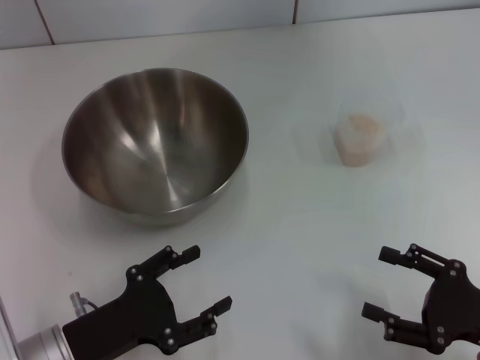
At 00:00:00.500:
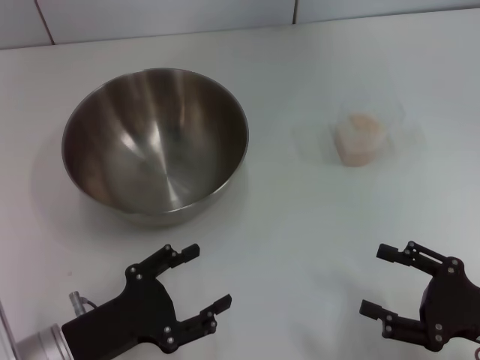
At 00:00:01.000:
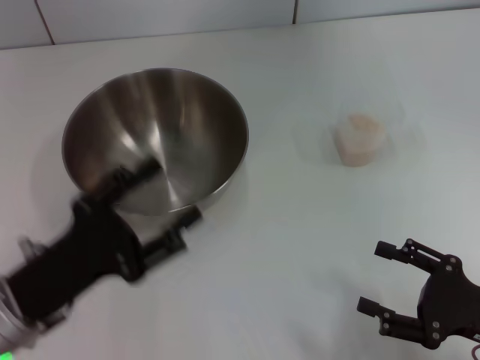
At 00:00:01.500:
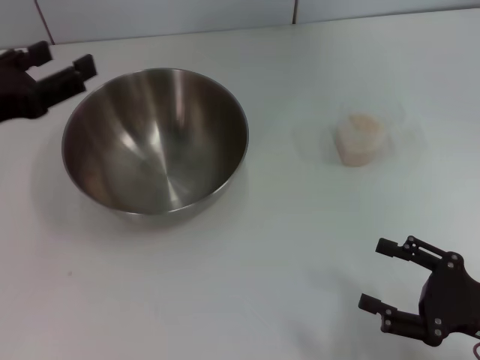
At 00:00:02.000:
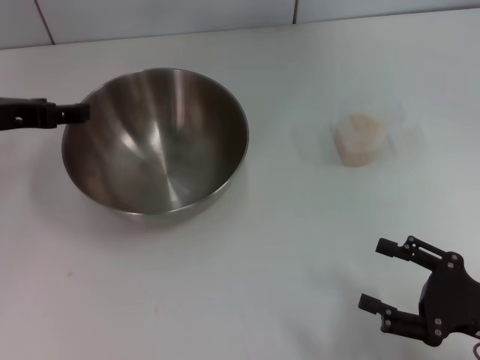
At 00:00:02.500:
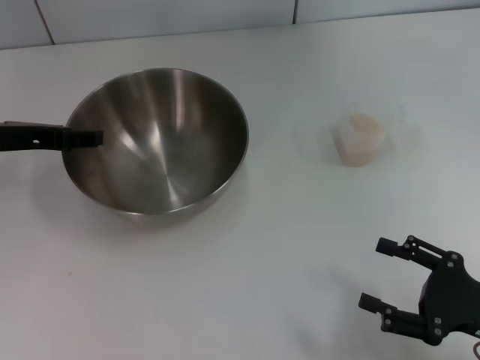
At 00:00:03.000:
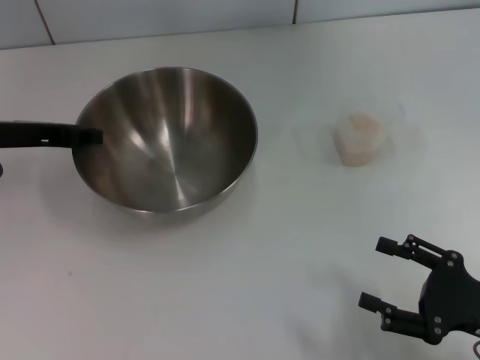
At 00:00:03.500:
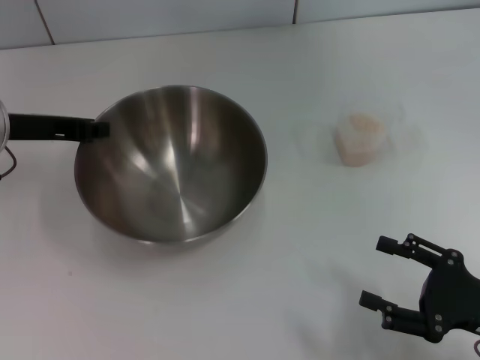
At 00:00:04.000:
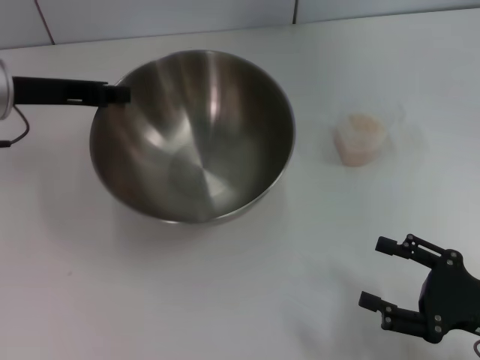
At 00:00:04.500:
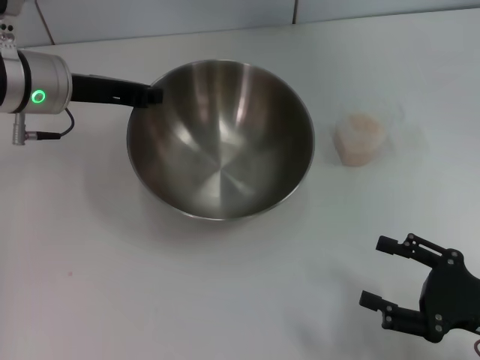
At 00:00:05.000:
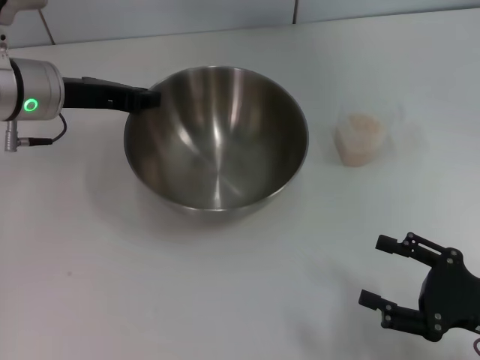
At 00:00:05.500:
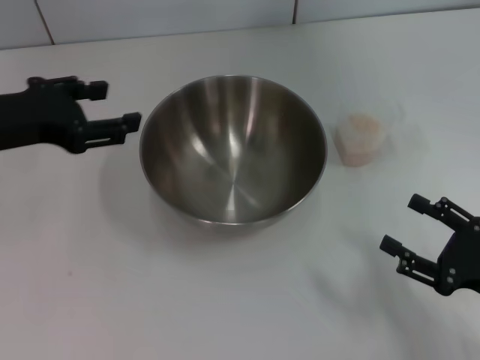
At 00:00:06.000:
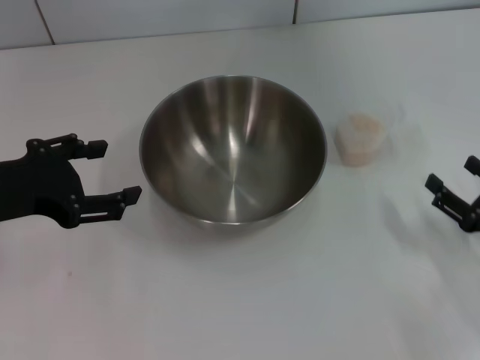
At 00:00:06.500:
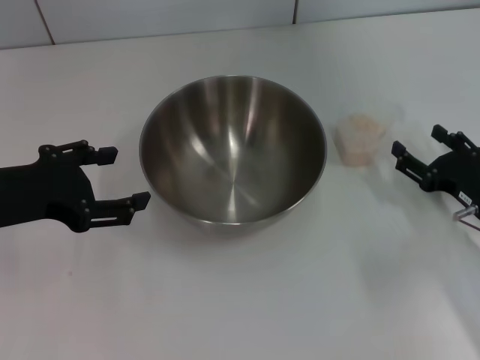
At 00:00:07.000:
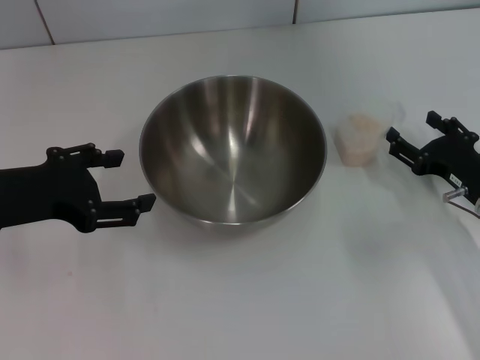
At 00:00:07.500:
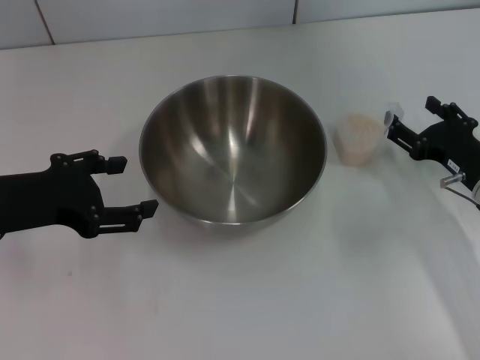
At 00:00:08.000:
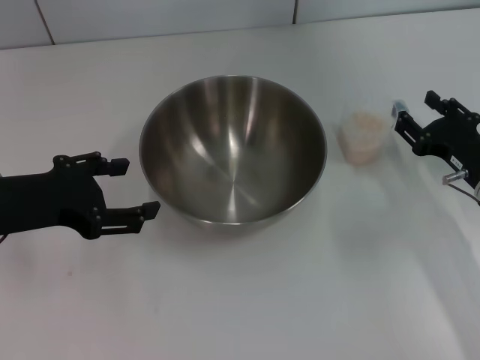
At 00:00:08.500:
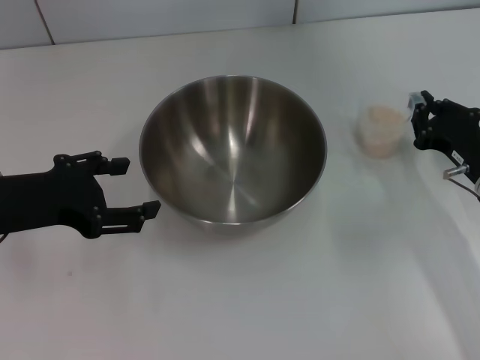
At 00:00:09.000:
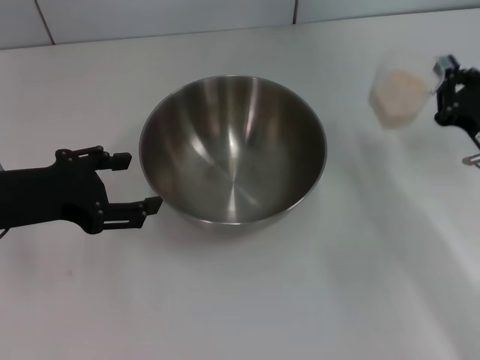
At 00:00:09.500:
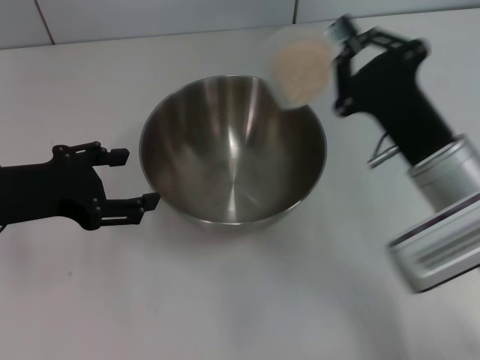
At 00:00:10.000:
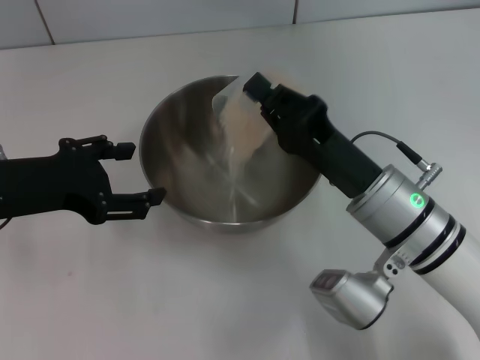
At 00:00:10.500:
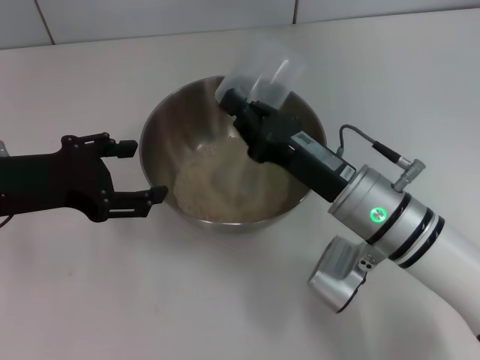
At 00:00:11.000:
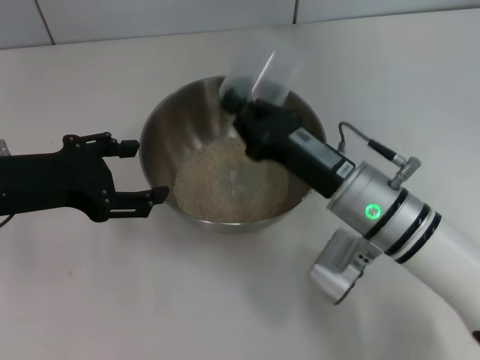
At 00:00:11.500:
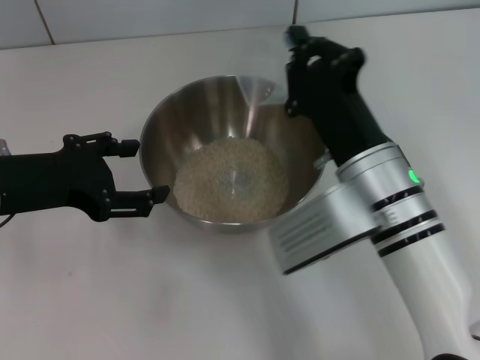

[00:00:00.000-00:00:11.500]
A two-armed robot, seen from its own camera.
Task of the whole recording: Place the bowl in the middle of the table with one hand and pour the rice from the grain cup into it with the other hand.
Step, 00:00:00.000 to 00:00:04.000: Pick up the bowl with the left gripper.
Step, 00:00:04.500 to 00:00:05.000: Place the bowl in the center of view with the left gripper.
Step, 00:00:05.500 to 00:00:09.000: Pick up the cup with rice in it with the right gripper.
Step, 00:00:09.500 to 00:00:10.500: Pour the rice from the cup into the bowl with the right gripper.
00:00:00.000 to 00:00:02.000: The left gripper heads forward and upward, covering approximately 25 cm.
00:00:02.000 to 00:00:04.000: The left gripper closes.
00:00:04.000 to 00:00:06.000: The left gripper shifts approximately 10 cm backward, and opens its fingers. Meanwhile the right gripper ends up approximately 5 cm from where it was.
00:00:06.000 to 00:00:07.500: The right gripper travels forward by some 10 cm.
00:00:07.500 to 00:00:09.500: The right gripper goes about 10 cm to the left and upward, and closes up.
00:00:09.500 to 00:00:11.500: The right gripper goes about 10 cm to the left.

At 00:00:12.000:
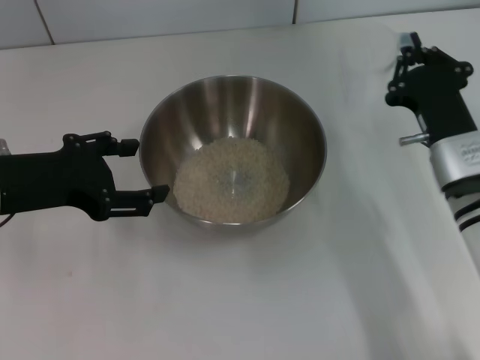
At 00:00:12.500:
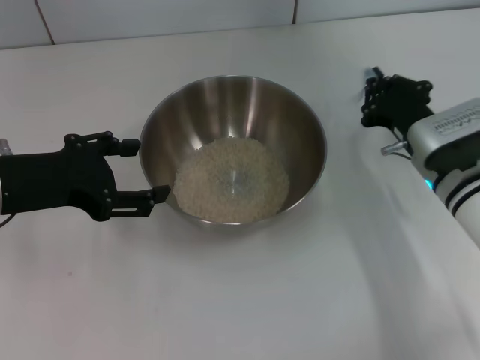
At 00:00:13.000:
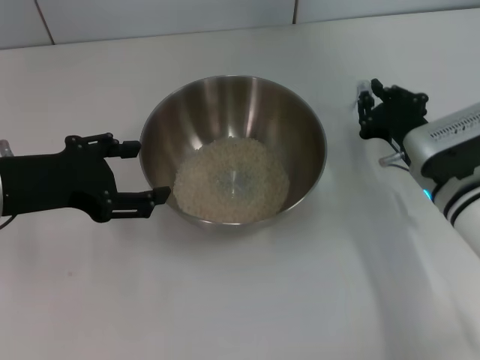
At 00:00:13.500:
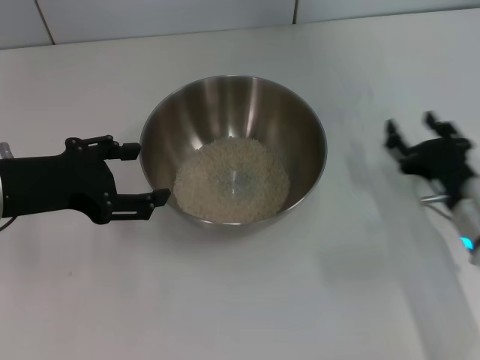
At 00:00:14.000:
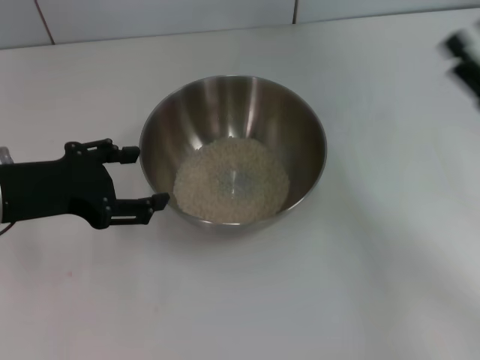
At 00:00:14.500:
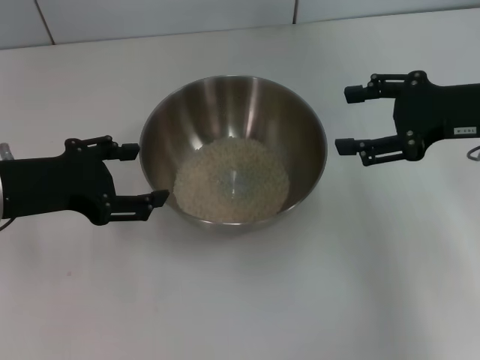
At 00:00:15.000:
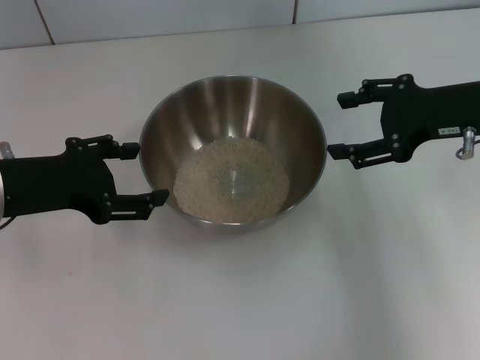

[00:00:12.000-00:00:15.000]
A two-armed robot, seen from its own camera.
Task of the whole recording: Place the bowl in the middle of the table with one hand and pour the rice from the grain cup into it with the other hand.
00:00:12.000 to 00:00:13.500: The right gripper changes place by approximately 5 cm, and opens up.
00:00:13.500 to 00:00:15.000: The right gripper shifts some 20 cm upward and forward, and opens its fingers.

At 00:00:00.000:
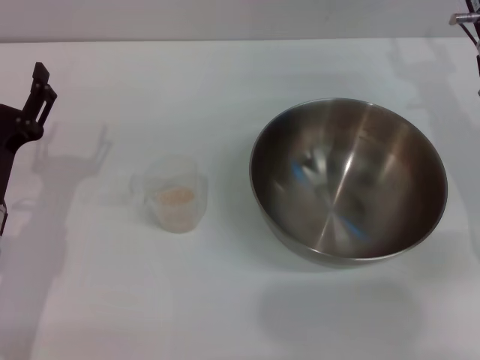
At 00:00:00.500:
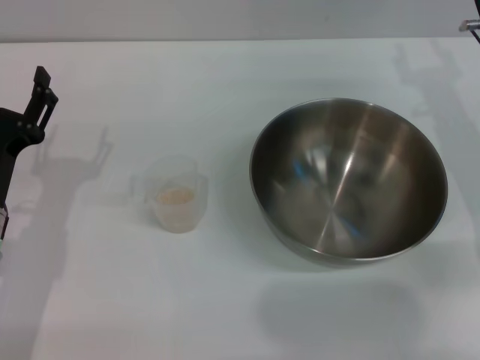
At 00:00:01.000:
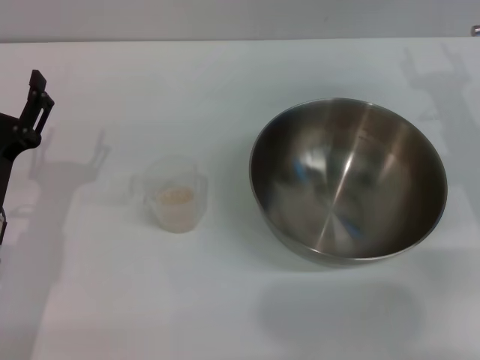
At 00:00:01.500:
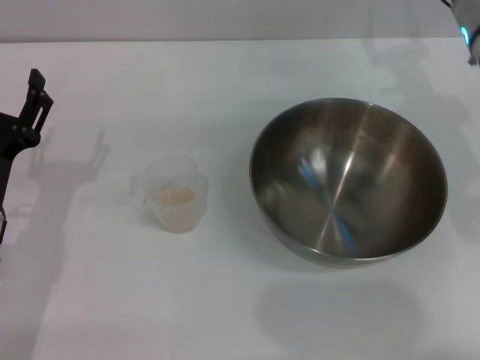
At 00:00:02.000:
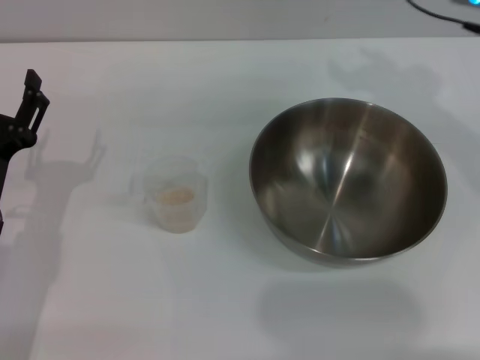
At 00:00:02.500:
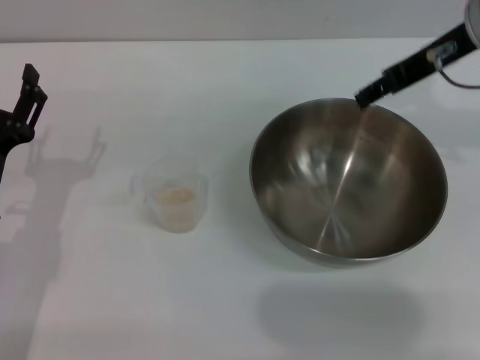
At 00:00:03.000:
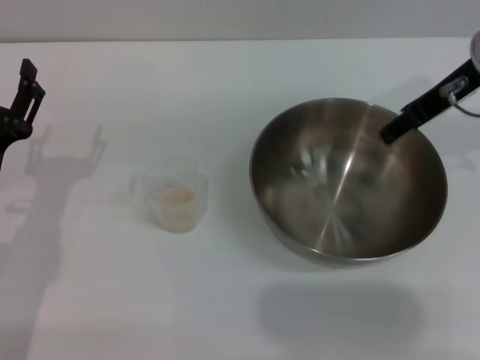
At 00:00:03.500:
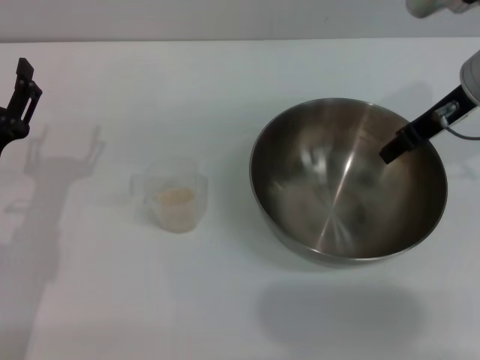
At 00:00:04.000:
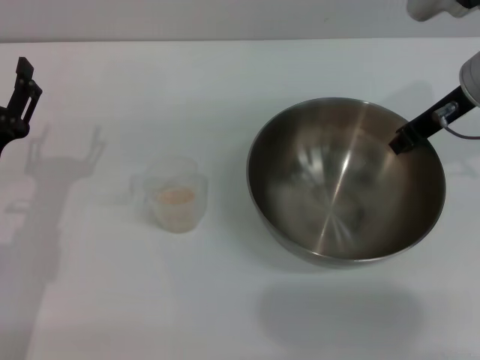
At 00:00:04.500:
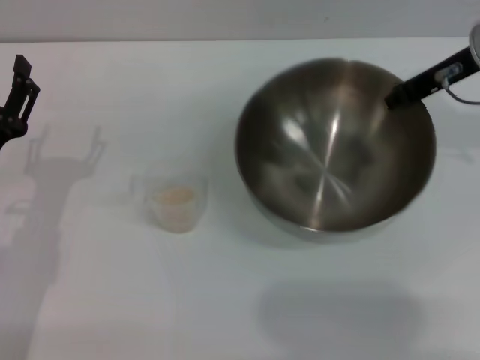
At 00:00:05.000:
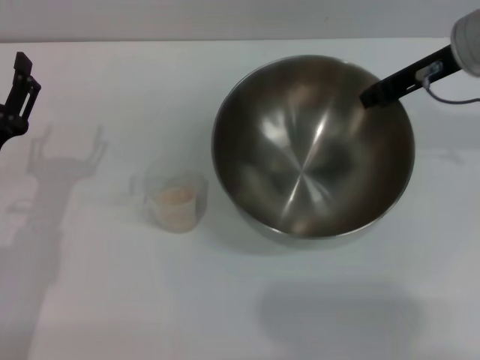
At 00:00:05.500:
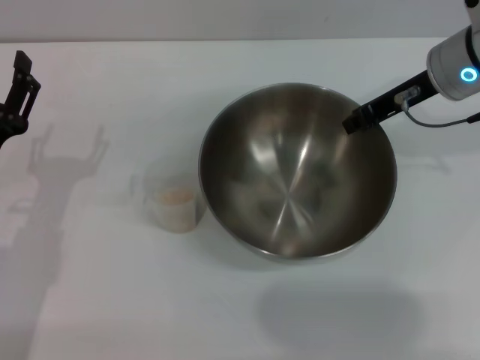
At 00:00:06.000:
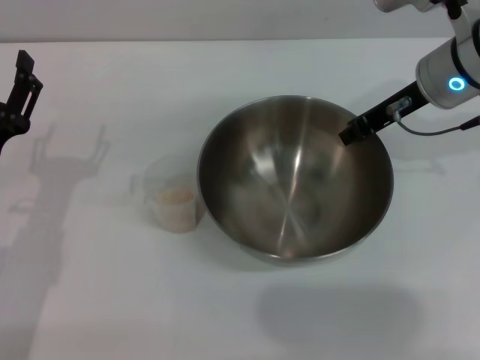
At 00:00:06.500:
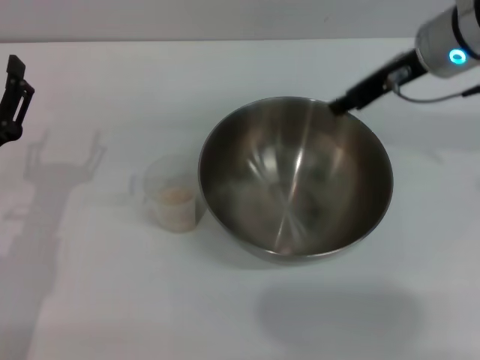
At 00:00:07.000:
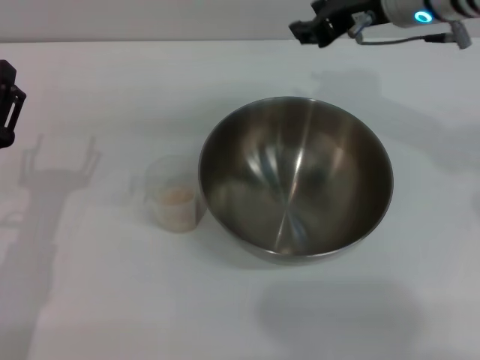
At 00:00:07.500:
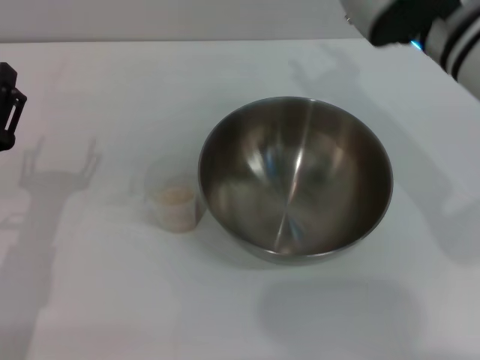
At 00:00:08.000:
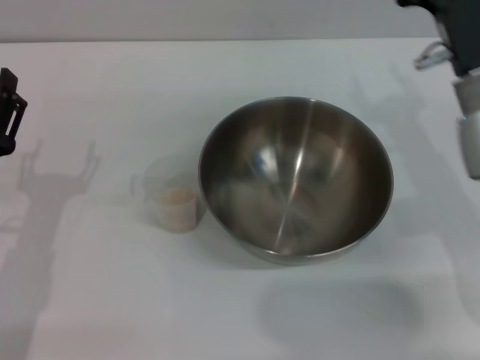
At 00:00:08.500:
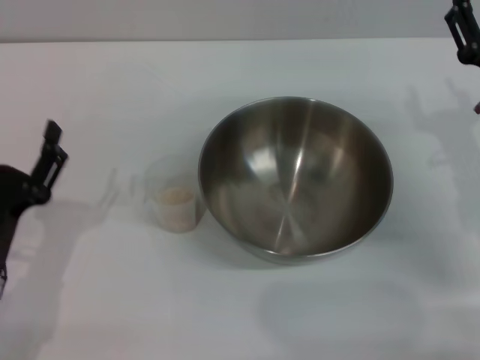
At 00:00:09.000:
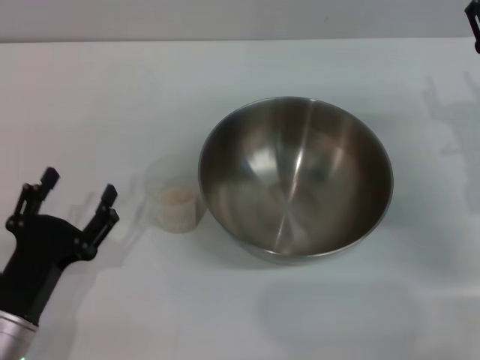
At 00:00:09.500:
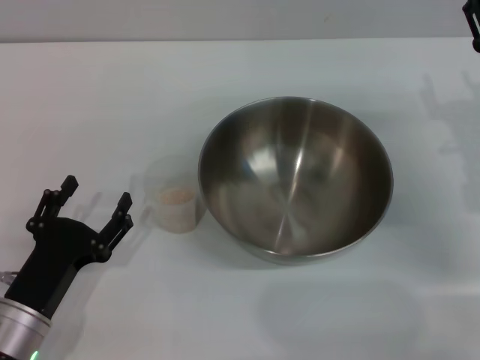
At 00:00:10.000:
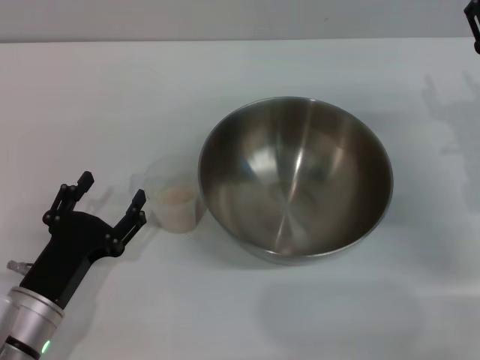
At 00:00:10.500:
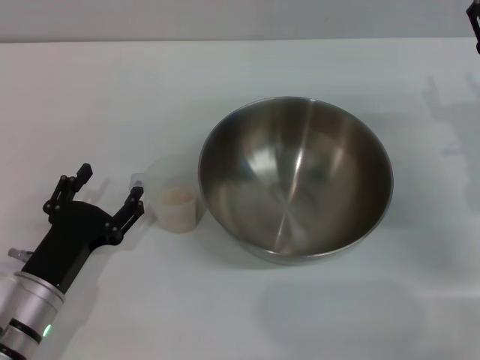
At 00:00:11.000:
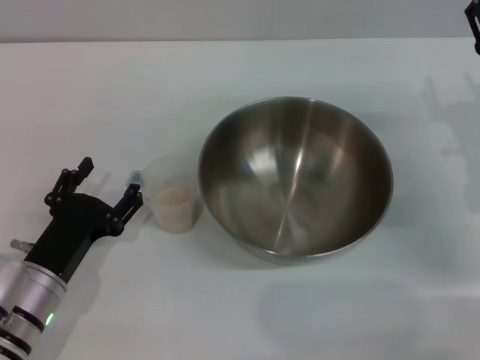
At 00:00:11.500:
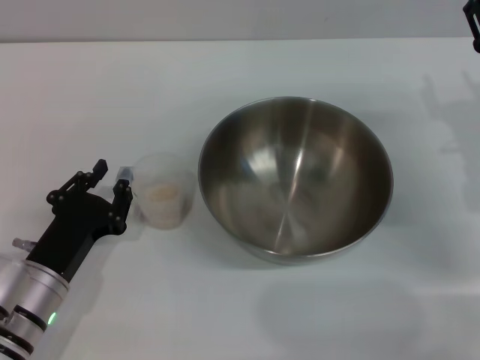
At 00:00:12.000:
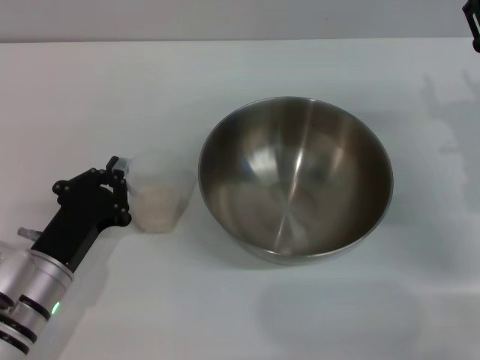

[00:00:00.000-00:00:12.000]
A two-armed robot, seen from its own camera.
Task of the whole recording: Place the bowl in the middle of the table with one hand and pour the rice from the grain cup into it with the other hand.
Step, 00:00:00.000 to 00:00:04.500: Pick up the bowl with the right gripper.
Step, 00:00:05.000 to 00:00:06.500: Place the bowl in the center of view with the right gripper.
00:00:00.000 to 00:00:02.000: The right gripper goes some 15 cm upward and to the left.
00:00:02.000 to 00:00:04.000: The right gripper travels downward by some 5 cm, and closes up.
00:00:04.000 to 00:00:06.000: The right gripper closes its fingers.
00:00:06.000 to 00:00:08.000: The right gripper moves backward, some 10 cm, and opens its fingers.
00:00:08.000 to 00:00:10.000: The left gripper goes about 5 cm downward; the right gripper heads to the right and downward, covering approximately 10 cm.
00:00:10.000 to 00:00:12.000: The left gripper closes its fingers.
